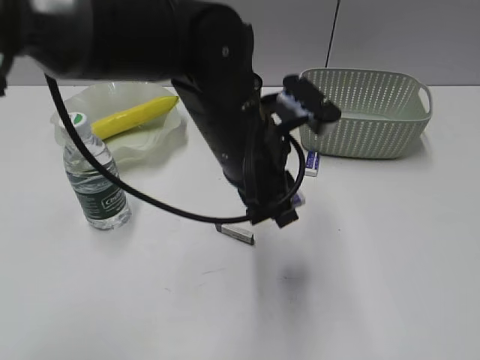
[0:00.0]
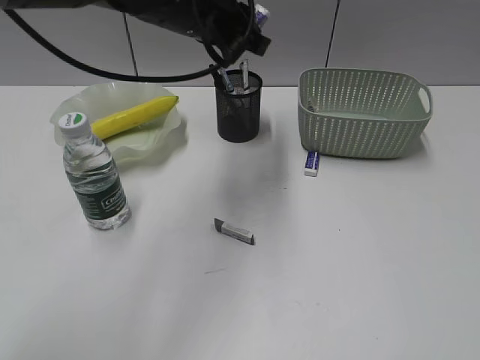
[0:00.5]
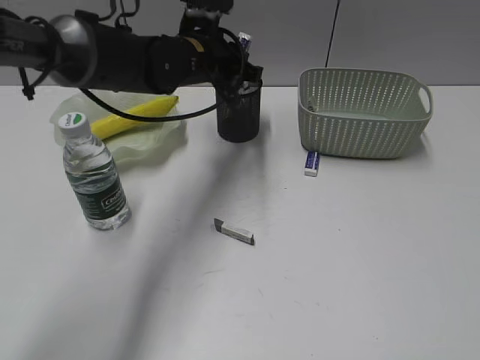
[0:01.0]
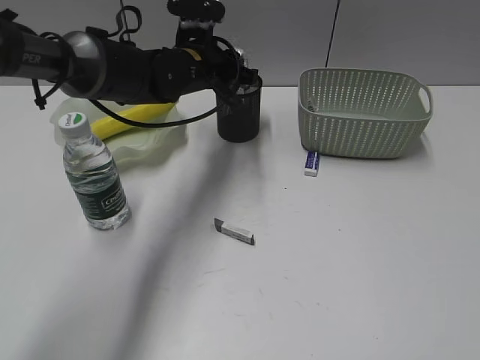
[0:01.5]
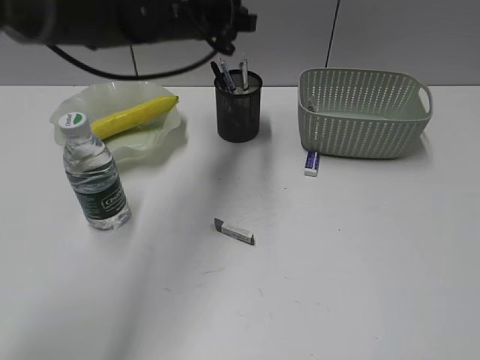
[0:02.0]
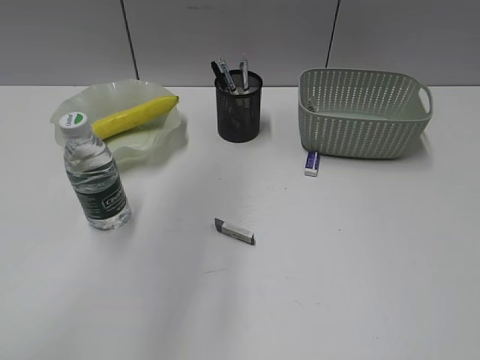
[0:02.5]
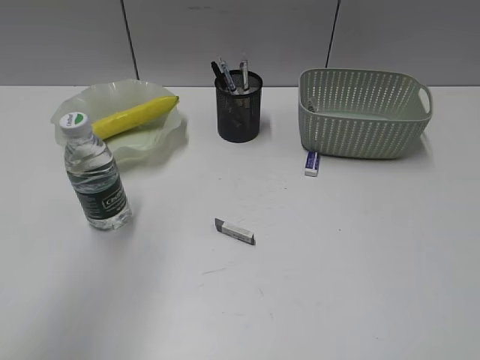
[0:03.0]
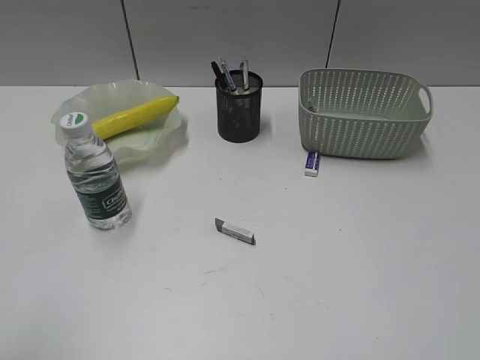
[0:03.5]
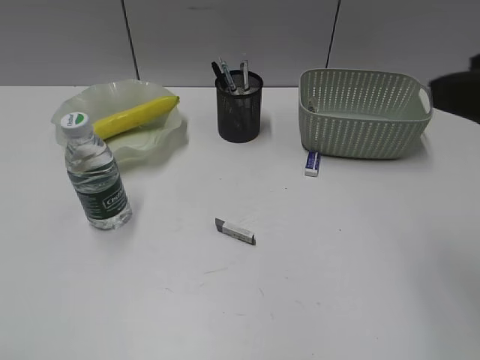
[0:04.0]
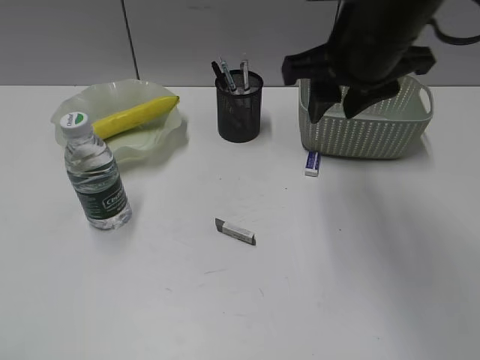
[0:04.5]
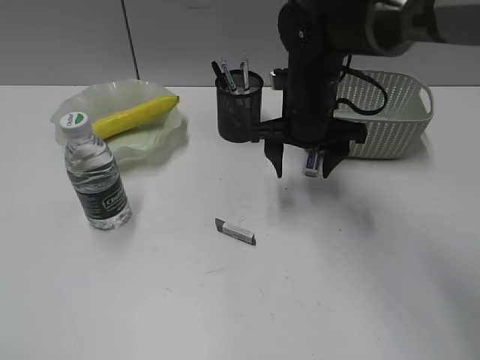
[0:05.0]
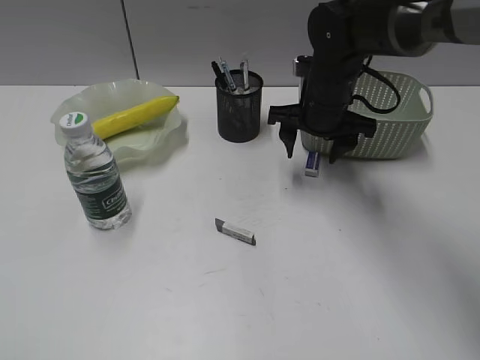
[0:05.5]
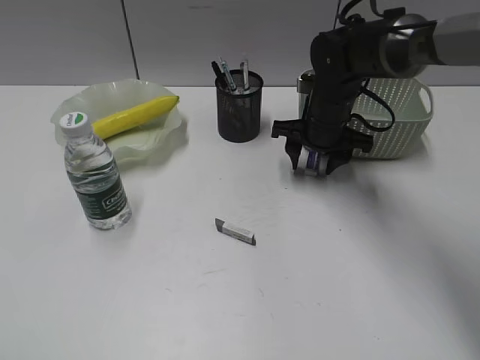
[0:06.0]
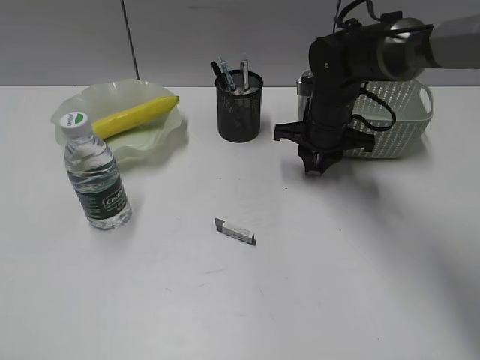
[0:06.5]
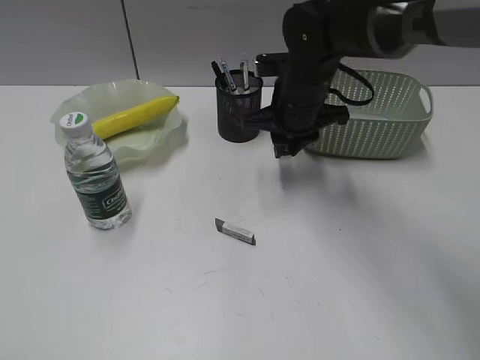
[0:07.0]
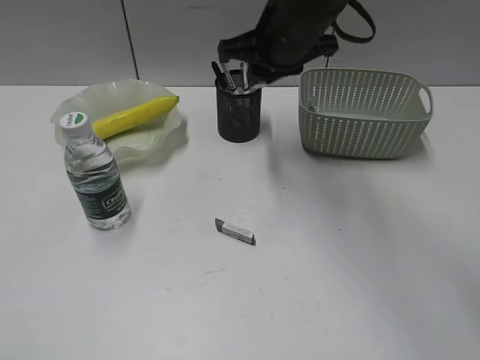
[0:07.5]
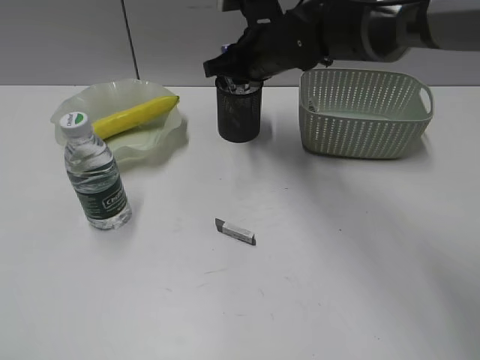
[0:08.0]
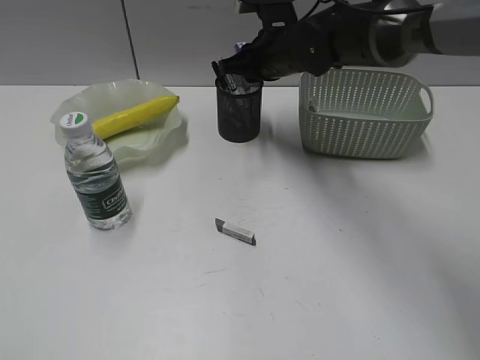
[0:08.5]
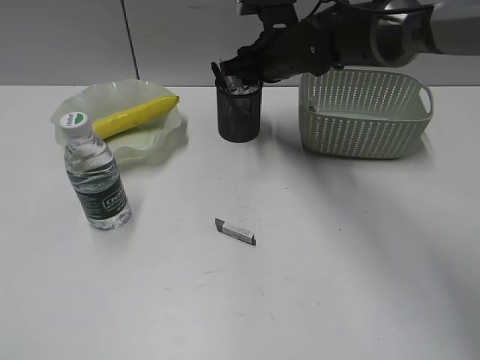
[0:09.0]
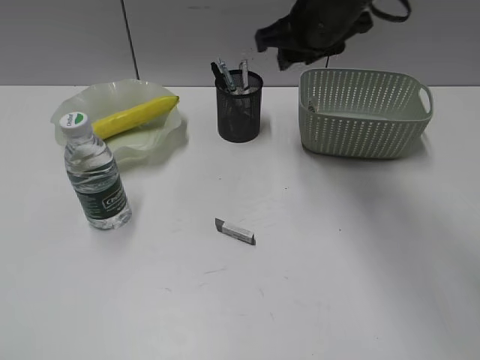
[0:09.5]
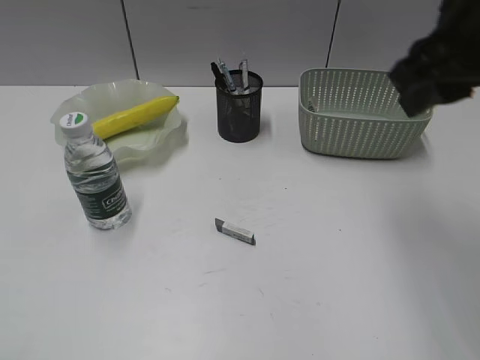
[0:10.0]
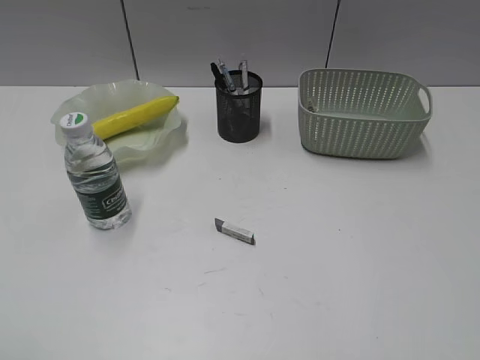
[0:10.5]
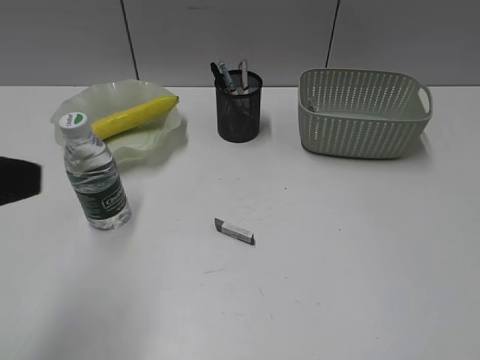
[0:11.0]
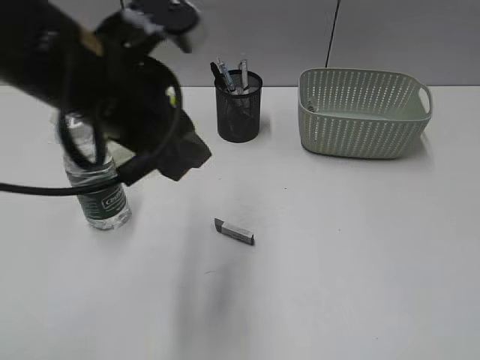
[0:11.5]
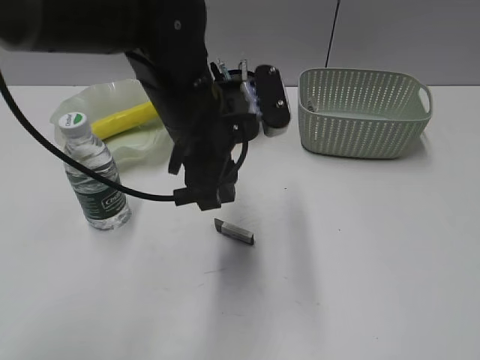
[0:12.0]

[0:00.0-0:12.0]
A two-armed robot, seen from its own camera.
Step, 0:00.0 to 0:01.5: Place the eraser in pen holder with left gripper.
Step, 0:02.0 to 0:06.0: Grasp the eraser with right gripper.
Step, 0:06.5 to 0:08.5: Place the eraser in pen holder with right gripper.
0:00.0 to 0:02.0: The left gripper is displaced forward and to the left by approximately 20 cm, and opens.
0:02.0 to 0:04.0: The right gripper moves forward and to the left, about 20 cm. Meanwhile the left gripper goes roughly 50 cm backward and to the left.
0:04.0 to 0:06.0: The right gripper shifts about 35 cm forward and downward.
0:06.0 to 0:08.0: The right gripper moves upward and to the left, some 10 cm, and closes its fingers.
0:08.0 to 0:10.0: The right gripper travels backward, to the right and upward by some 25 cm.
0:10.0 to 0:12.0: The left gripper moves forward and to the right, roughly 40 cm, while the right gripper heads backward and to the right, covering some 30 cm.

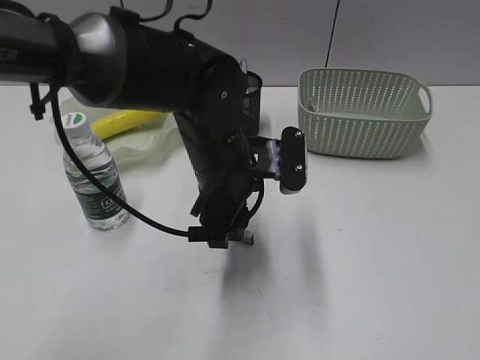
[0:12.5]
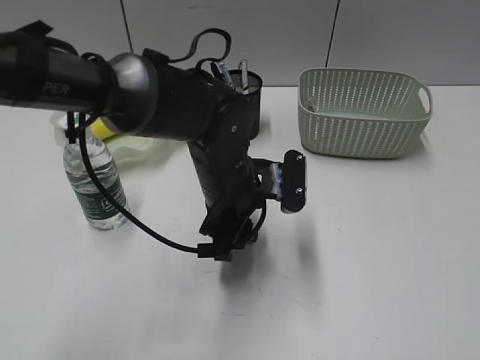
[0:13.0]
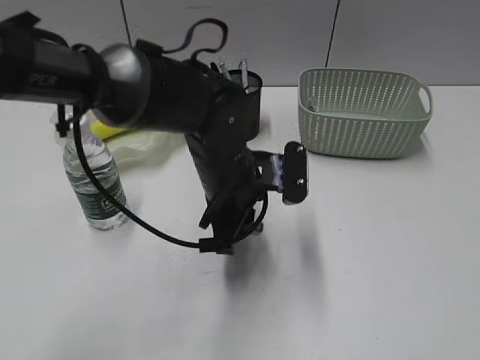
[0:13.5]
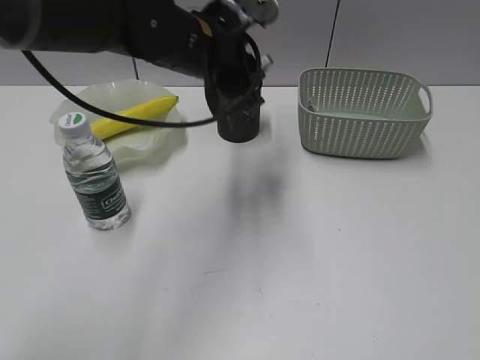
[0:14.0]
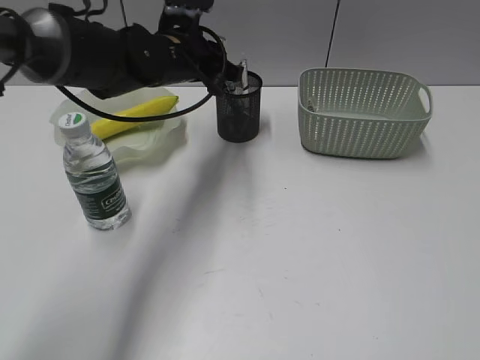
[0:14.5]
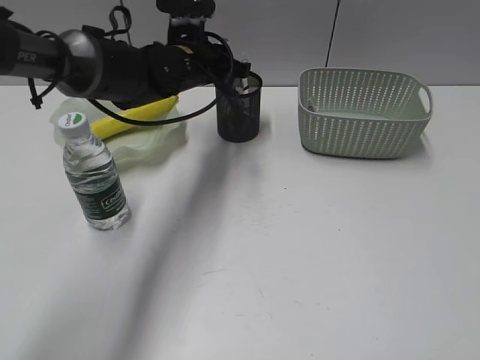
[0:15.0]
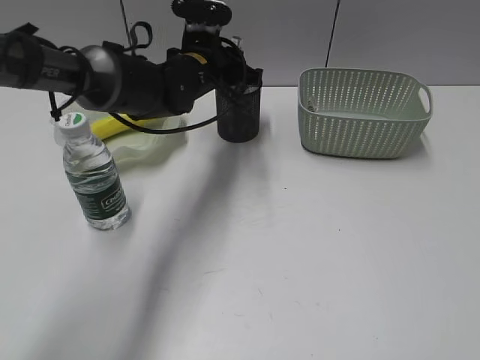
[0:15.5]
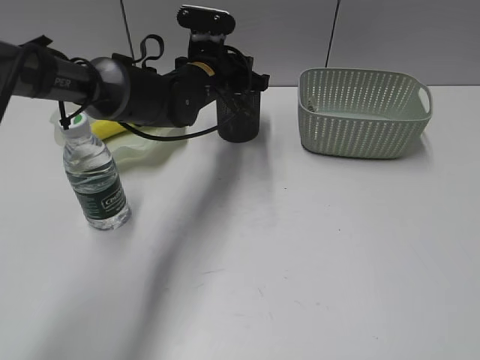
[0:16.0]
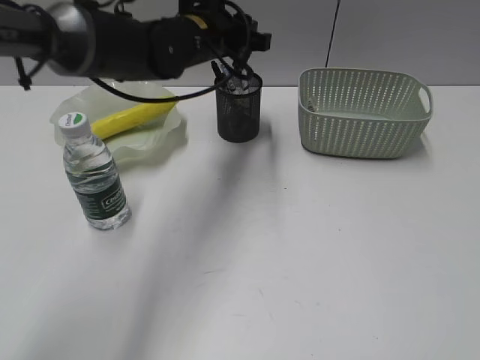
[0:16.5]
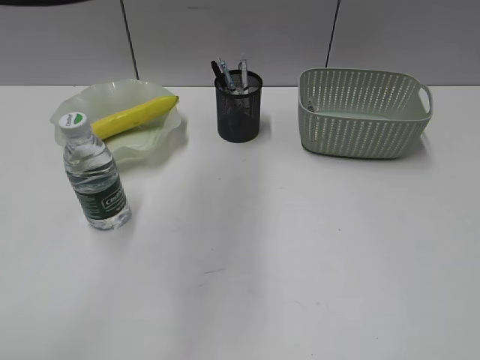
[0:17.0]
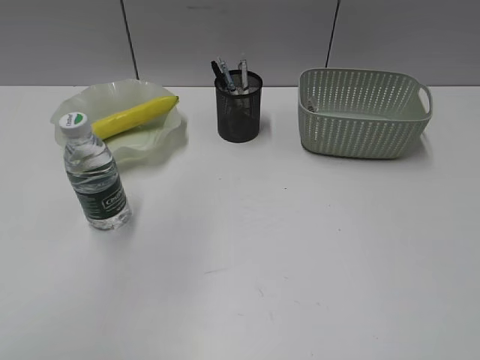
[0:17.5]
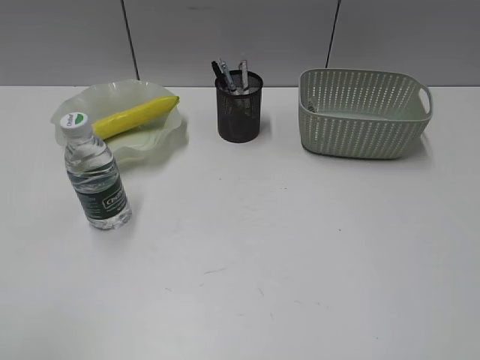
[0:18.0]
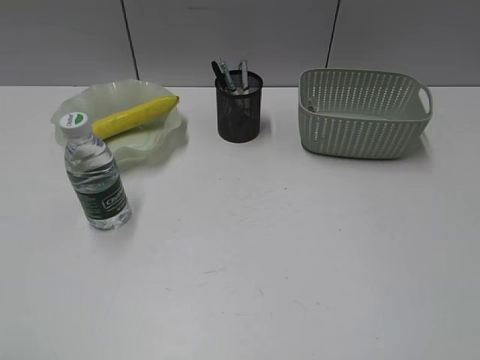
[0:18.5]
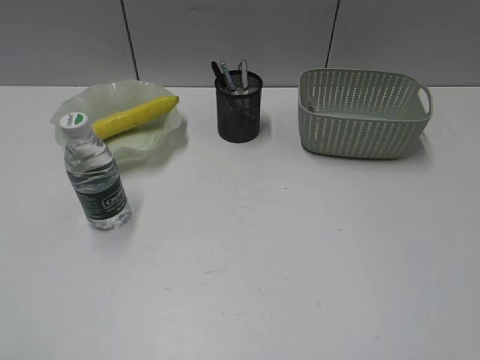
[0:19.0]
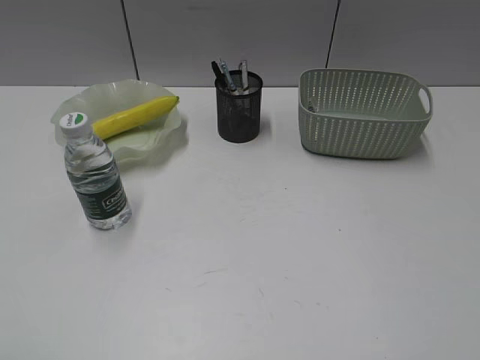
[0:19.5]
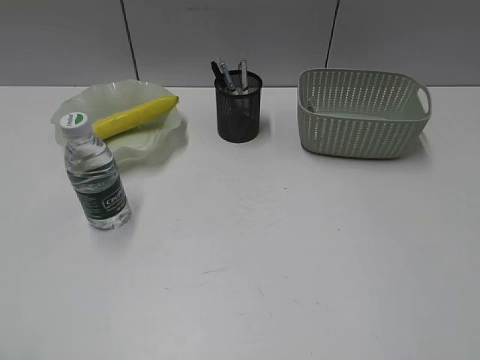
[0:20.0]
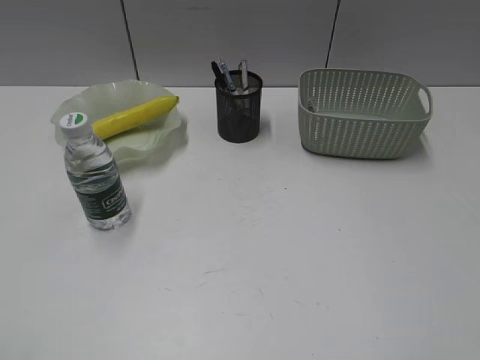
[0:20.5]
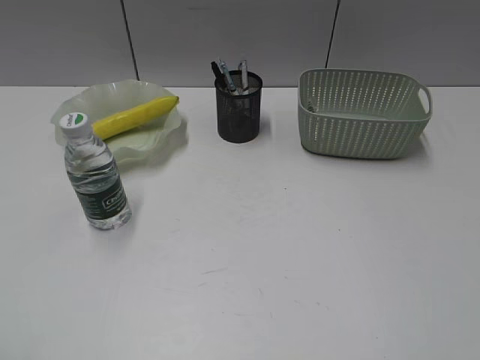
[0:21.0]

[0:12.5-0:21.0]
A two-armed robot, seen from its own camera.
Step, 0:13.5 to 0:16.0: Place the eraser in pen holder with left gripper.
0:12.5 to 0:14.5: The left gripper moves forward and to the left, some 15 cm, and closes.
0:14.5 to 0:16.5: The grippers make only small movements.
0:16.5 to 0:19.0: The left gripper shifts approximately 50 cm backward and to the left.

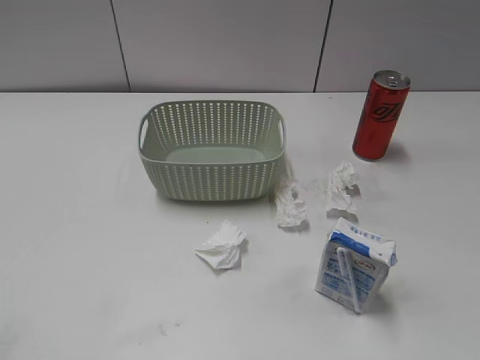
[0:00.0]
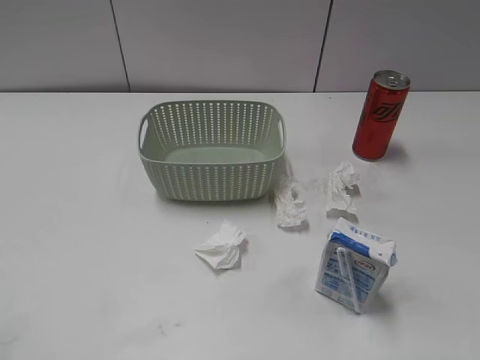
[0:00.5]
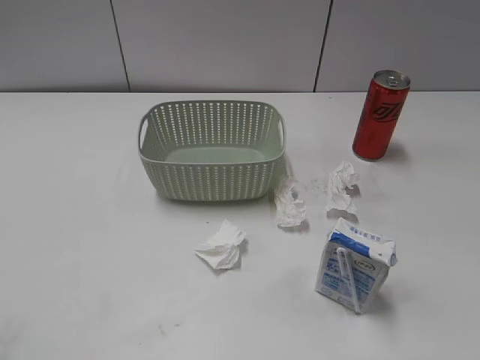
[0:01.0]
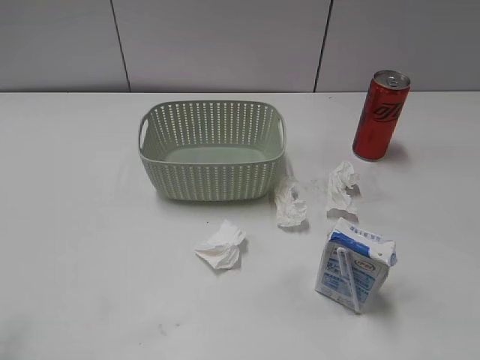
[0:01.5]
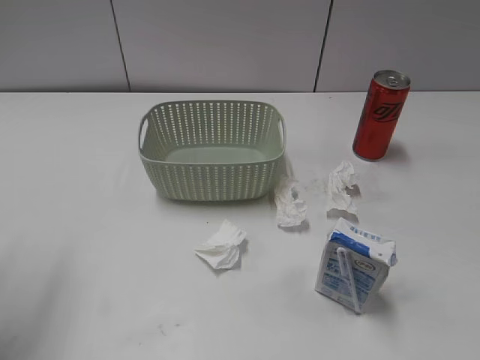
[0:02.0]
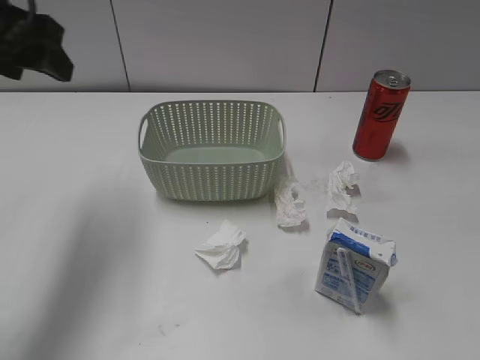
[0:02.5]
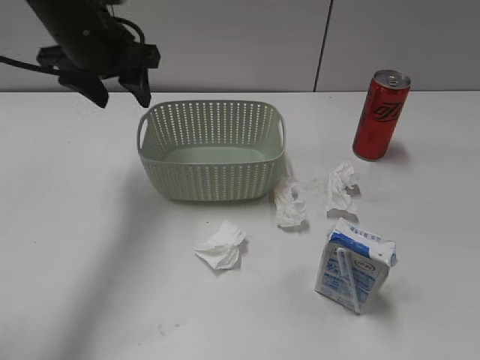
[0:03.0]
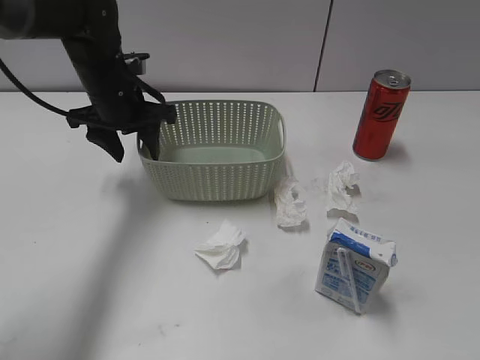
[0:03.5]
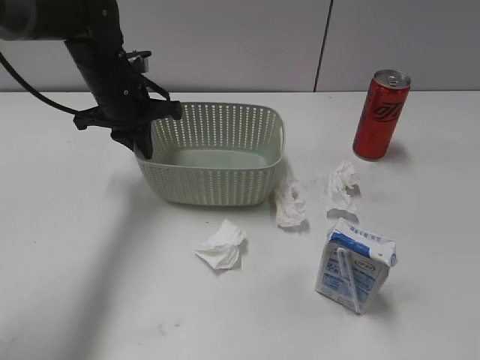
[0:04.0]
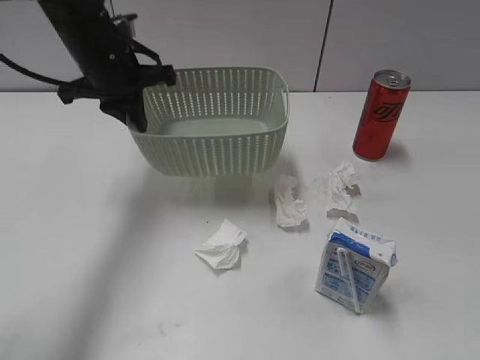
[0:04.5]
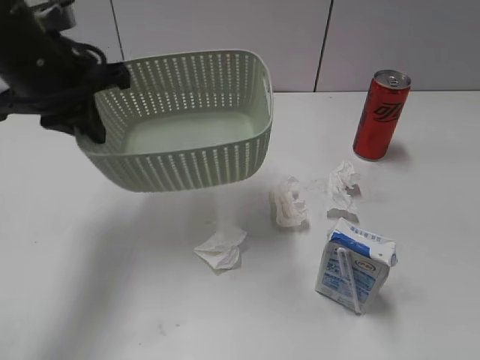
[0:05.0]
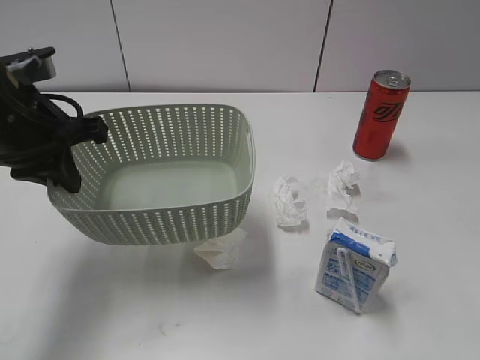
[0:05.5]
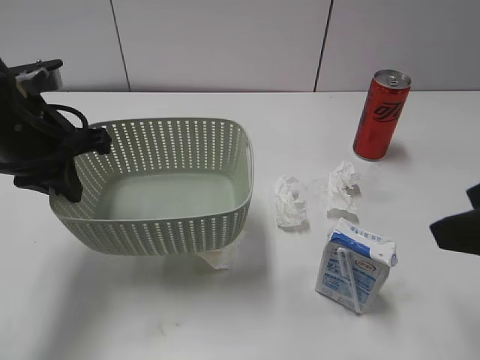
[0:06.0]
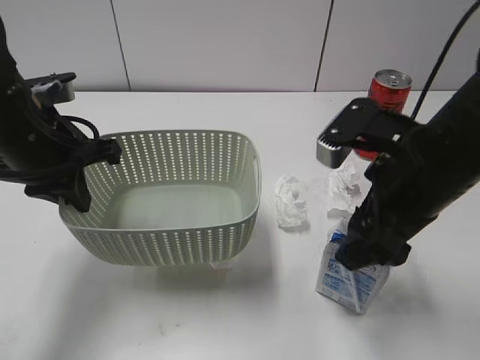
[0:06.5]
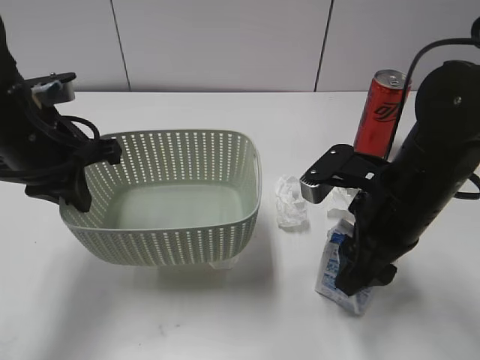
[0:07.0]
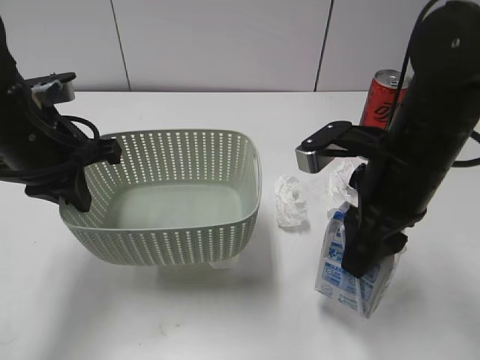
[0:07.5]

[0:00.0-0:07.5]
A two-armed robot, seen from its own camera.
Step, 0:02.5 to 0:04.0: Grasp the basket with left gripper.
Step, 0:04.5 to 0:05.5: Lift the basket with left gripper.
Step, 0:06.0 to 0:07.0: Grasp the milk with right gripper.
0:02.0 to 0:04.0: The left gripper is displaced forward, downward and to the right by about 30 cm, and closes up.
0:04.0 to 0:05.5: The right gripper moves forward, approximately 5 cm. Meanwhile the left gripper travels backward and upward by roughly 15 cm.
0:05.5 to 0:07.5: The right gripper shifts approximately 20 cm forward and to the left, and closes.
